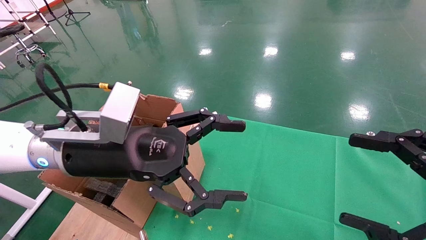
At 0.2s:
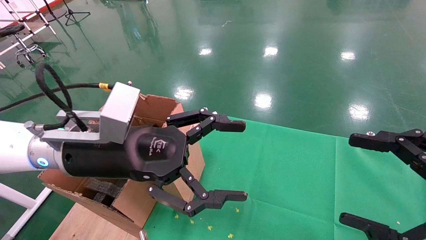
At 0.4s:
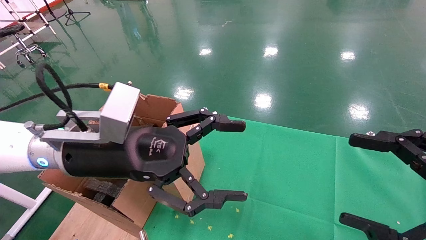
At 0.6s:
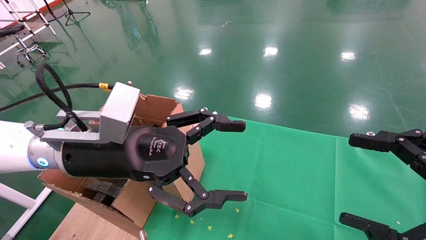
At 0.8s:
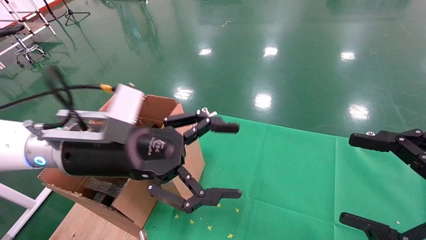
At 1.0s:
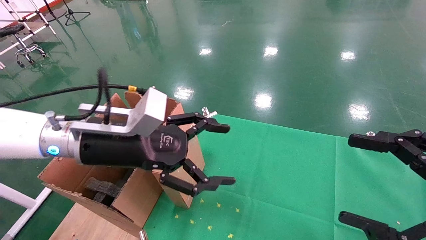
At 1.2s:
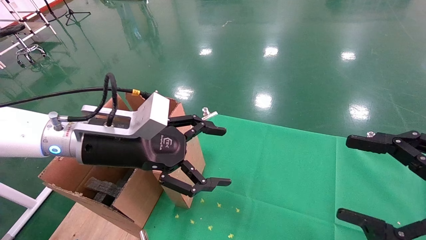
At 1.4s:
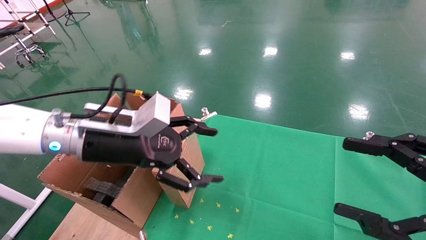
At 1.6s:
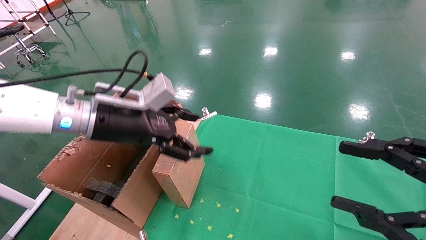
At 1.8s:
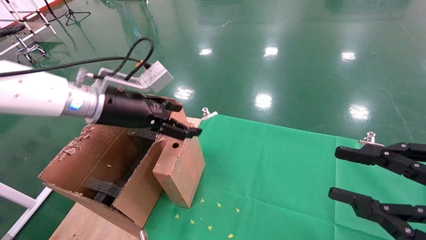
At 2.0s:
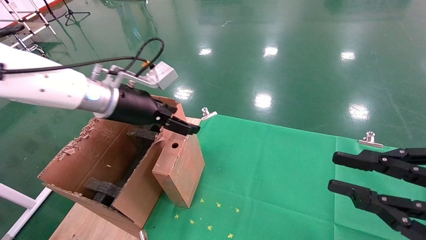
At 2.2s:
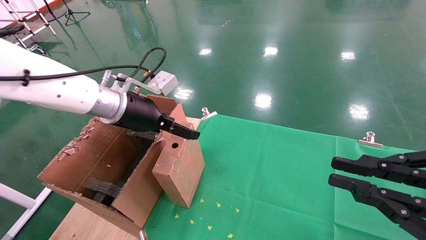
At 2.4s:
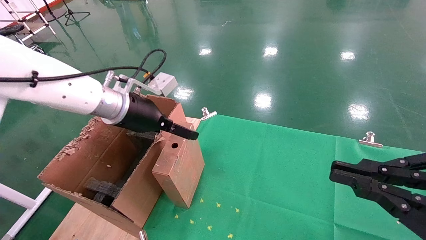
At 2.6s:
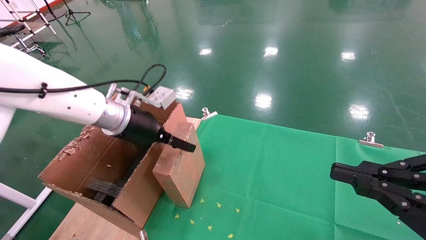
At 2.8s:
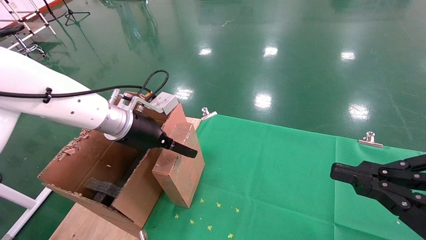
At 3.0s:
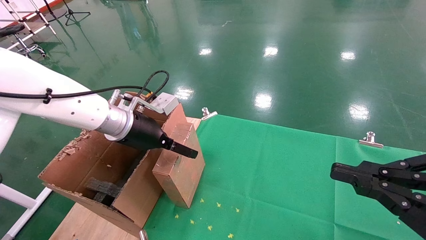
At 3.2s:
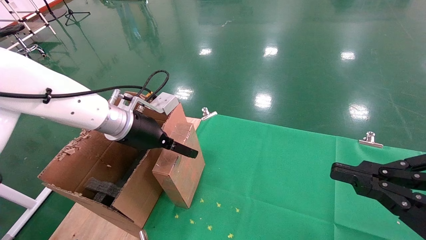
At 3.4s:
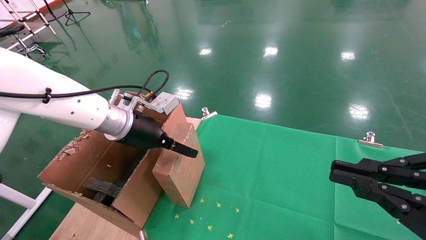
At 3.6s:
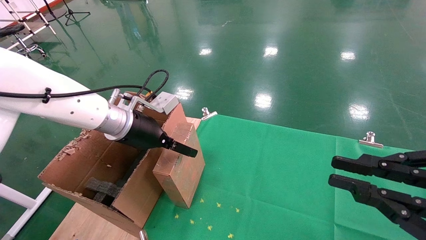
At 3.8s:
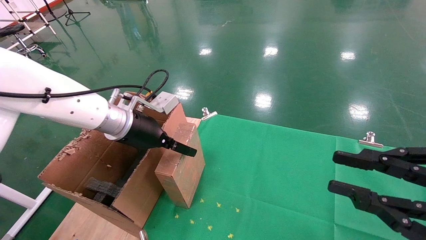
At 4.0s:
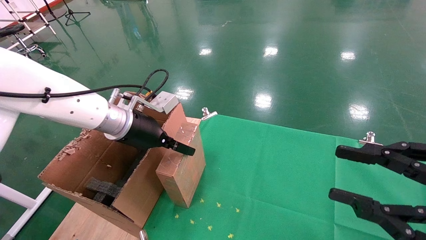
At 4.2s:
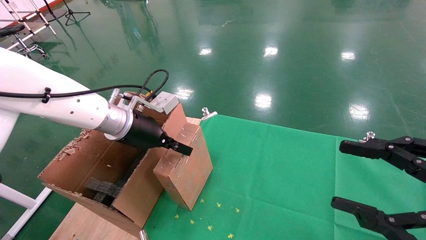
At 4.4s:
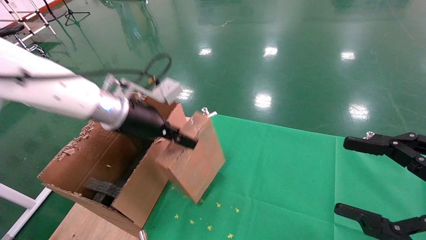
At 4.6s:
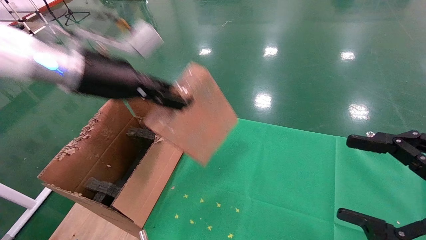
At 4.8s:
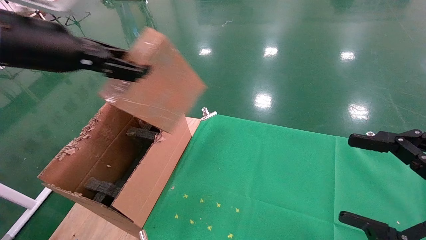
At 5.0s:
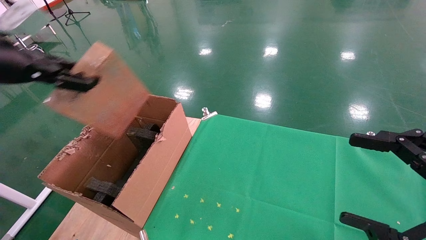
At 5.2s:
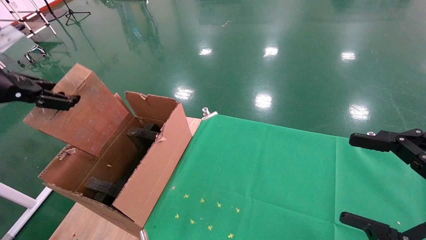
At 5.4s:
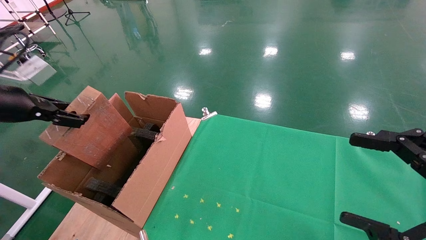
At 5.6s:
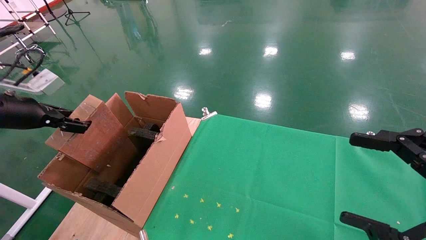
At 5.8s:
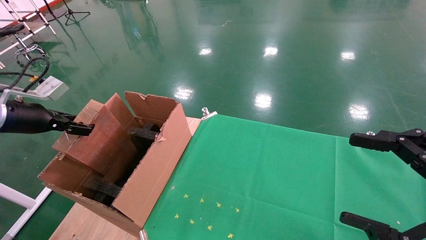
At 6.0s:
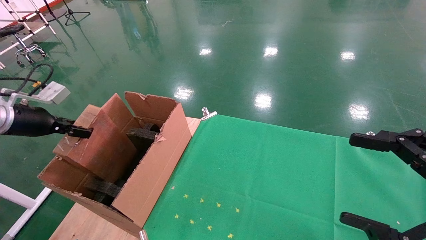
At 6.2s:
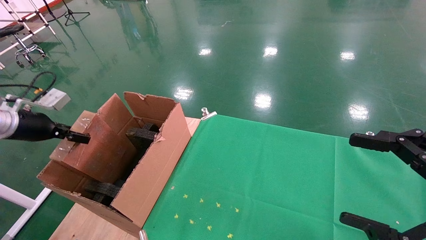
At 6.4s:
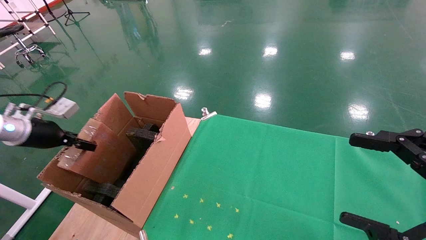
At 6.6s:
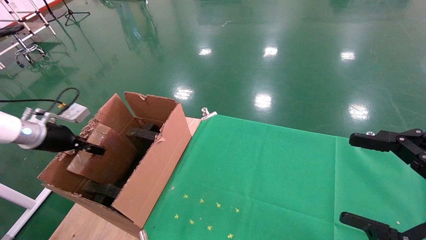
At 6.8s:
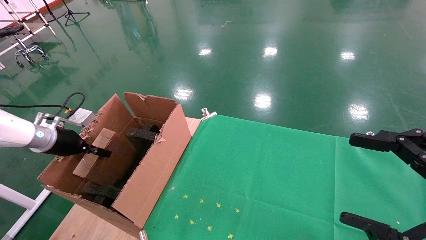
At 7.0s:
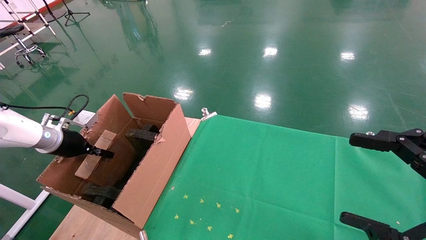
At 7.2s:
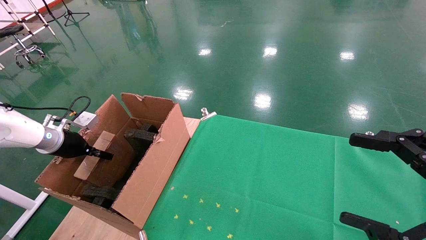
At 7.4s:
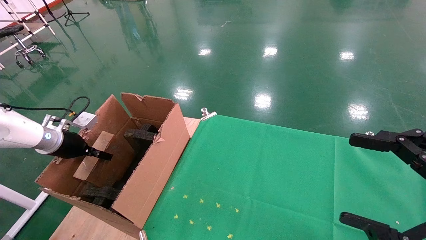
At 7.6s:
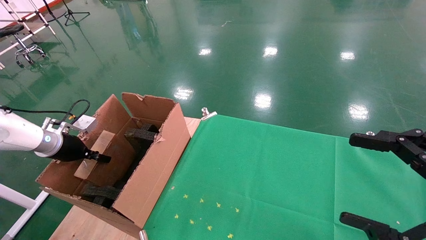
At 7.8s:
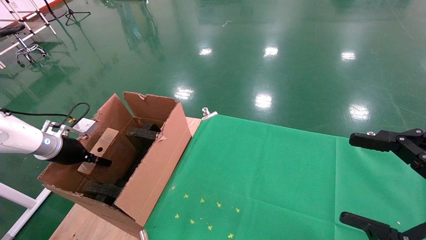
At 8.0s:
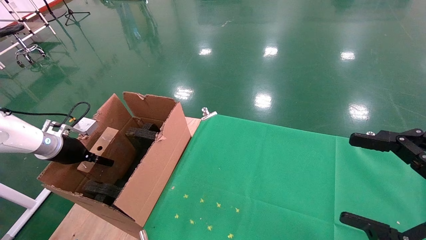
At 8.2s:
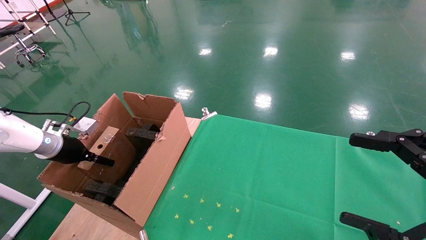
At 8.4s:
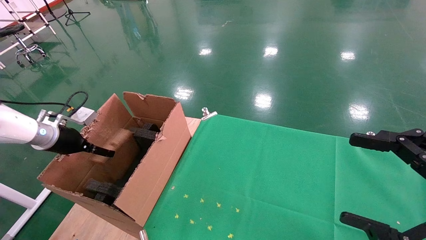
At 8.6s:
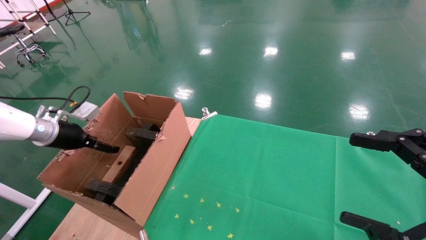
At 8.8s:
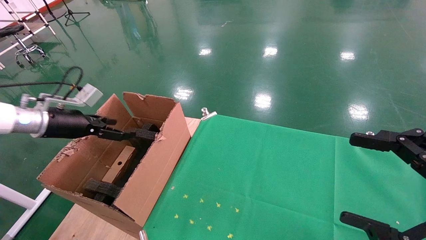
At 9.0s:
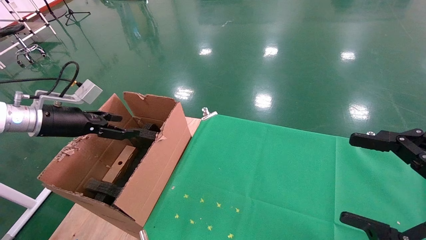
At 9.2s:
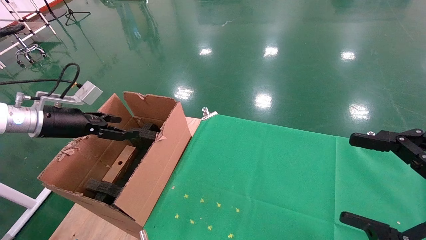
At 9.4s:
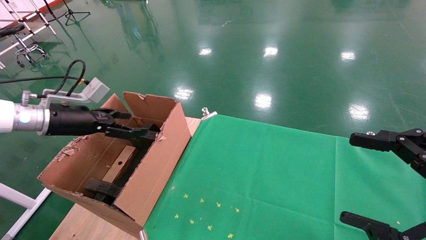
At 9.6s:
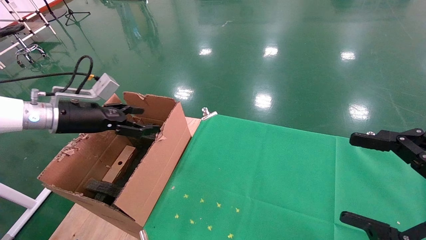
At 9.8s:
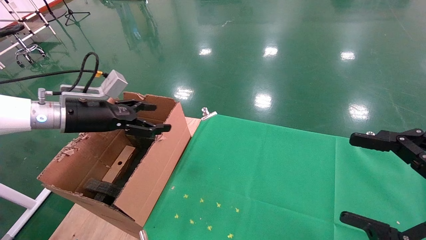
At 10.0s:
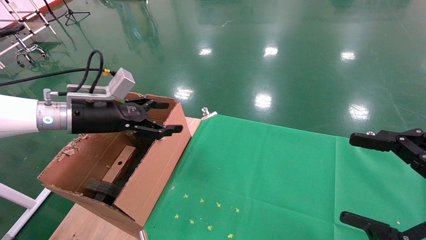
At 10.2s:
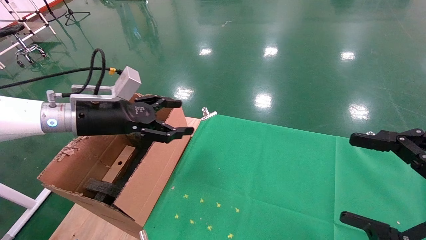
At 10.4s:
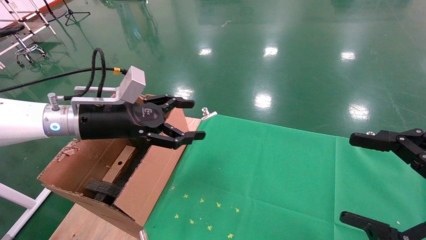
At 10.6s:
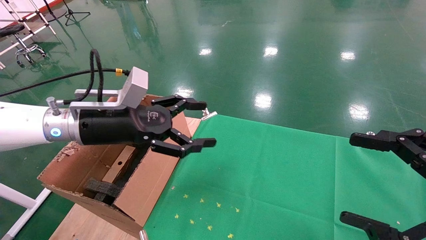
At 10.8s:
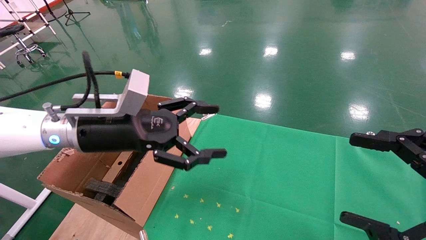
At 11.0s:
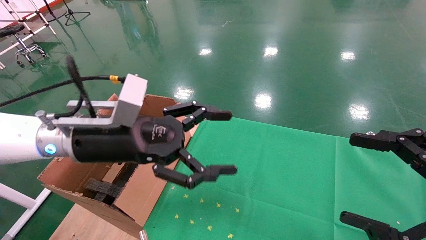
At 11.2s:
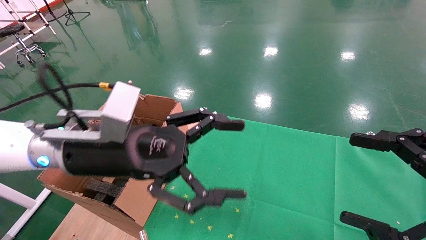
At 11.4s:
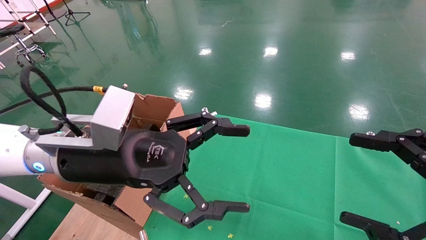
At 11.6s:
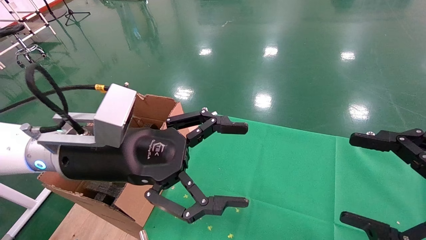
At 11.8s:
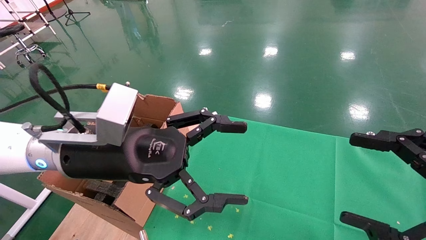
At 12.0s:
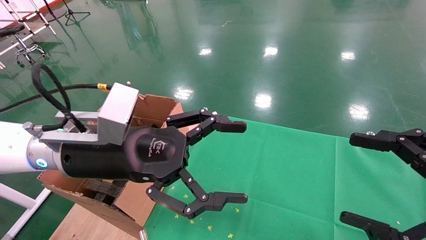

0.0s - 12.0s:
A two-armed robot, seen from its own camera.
Task of the whole recording: using a robotic arm to pick up a cardboard box and palace it the carton.
Step, 0.8s - 3.8s: Pick up the mouse and the power cord paper box.
Step, 4.0s - 8.8s: Place the mouse and the power cord paper box into the container.
0.0s - 1.6s: The left gripper is displaced forward by roughly 10 cm.
1.6s - 3.0s: The right gripper closes its fingers, while the left gripper shifts by some 5 cm.
3.0s - 4.4s: The left gripper moves upward, approximately 5 cm, and closes; the right gripper opens up.
4.4s - 6.0s: The left gripper travels to the left by approximately 25 cm. The right gripper opens its fingers.
6.0s - 7.6s: The left gripper travels downward and forward by about 10 cm.
7.6s - 9.0s: The left gripper shifts some 10 cm upward, and opens.
9.0s - 10.4s: The left gripper shifts roughly 15 cm to the right.
10.4s - 12.0s: The left gripper is displaced to the right and backward by roughly 10 cm.

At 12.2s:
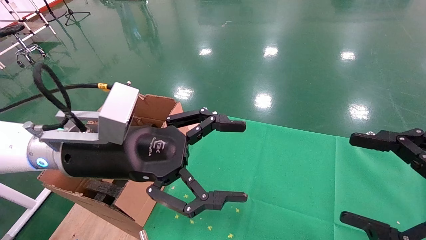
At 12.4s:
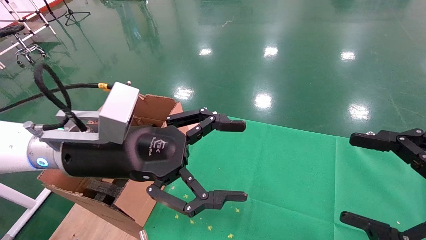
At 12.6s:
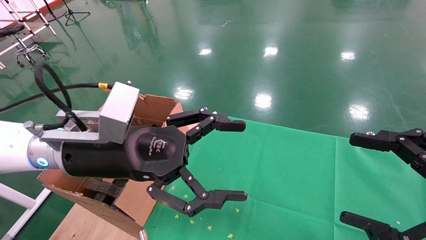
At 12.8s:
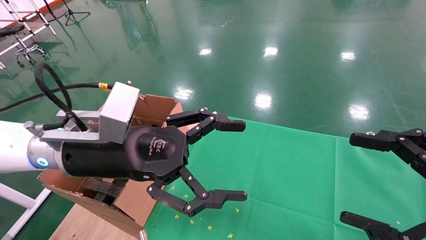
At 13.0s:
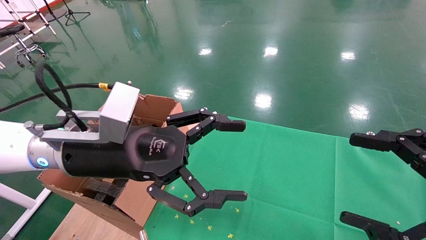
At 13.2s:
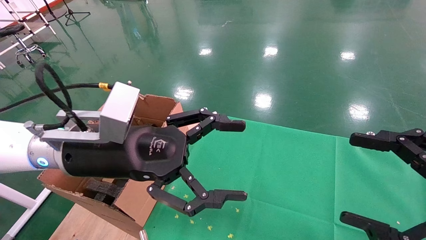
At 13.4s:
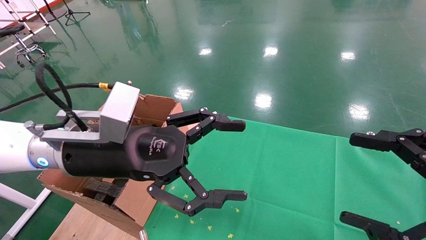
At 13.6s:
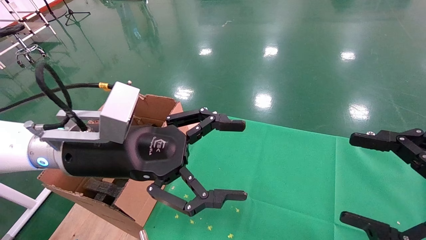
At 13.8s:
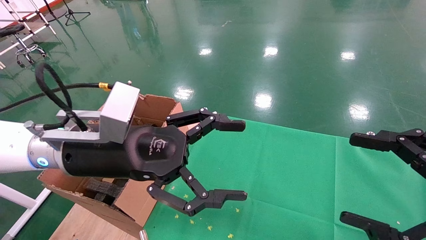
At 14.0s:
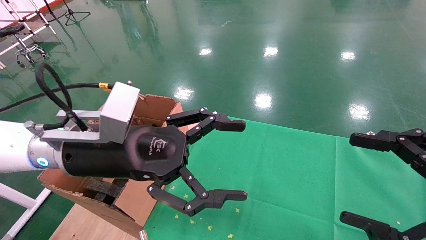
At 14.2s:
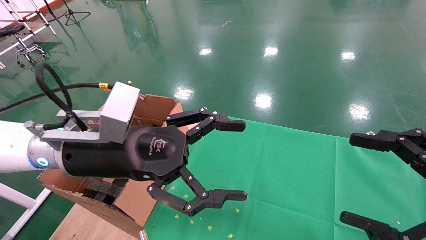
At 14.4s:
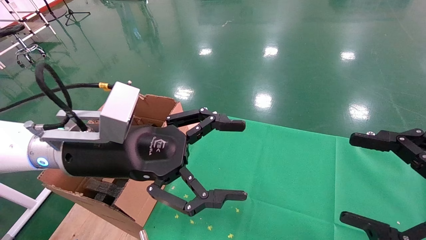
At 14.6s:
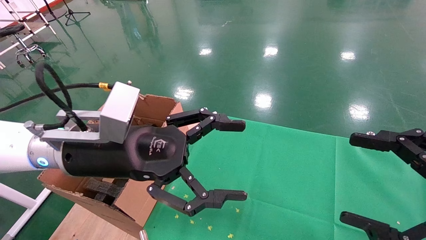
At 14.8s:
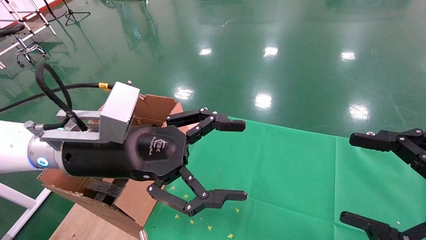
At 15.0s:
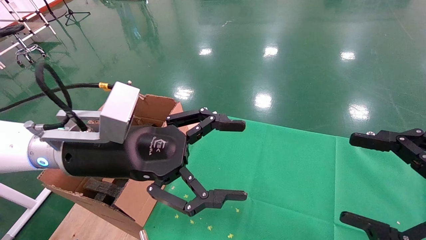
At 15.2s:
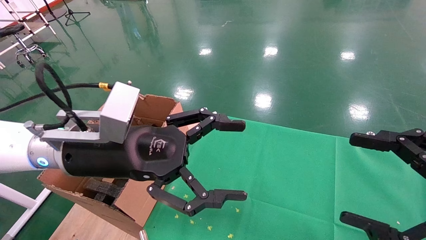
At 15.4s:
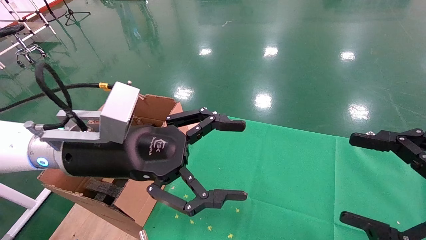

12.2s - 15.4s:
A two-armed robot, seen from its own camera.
Task of the whole recording: using a robotic arm to pick up a cardboard box and palace it the carton.
12.2s - 15.4s: The two grippers keep their place.

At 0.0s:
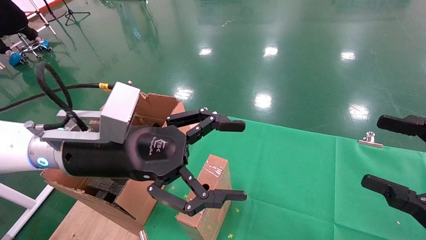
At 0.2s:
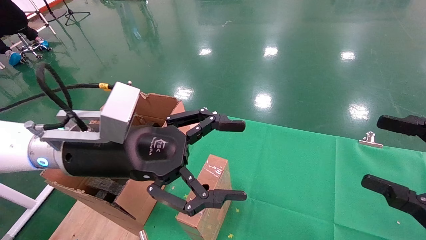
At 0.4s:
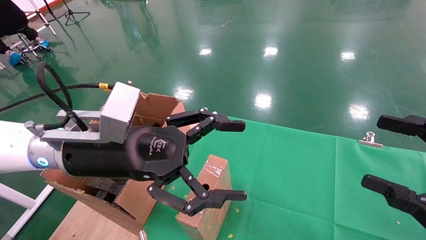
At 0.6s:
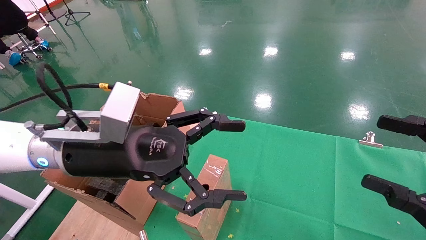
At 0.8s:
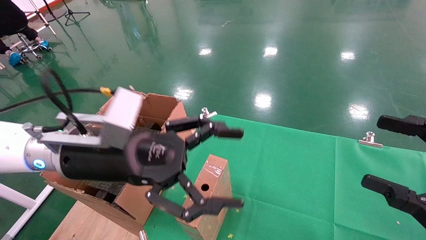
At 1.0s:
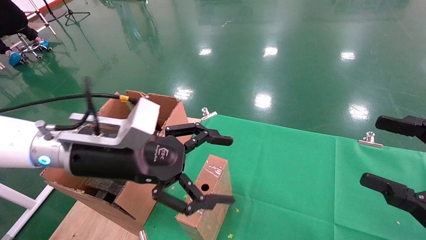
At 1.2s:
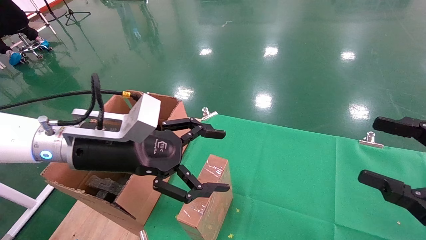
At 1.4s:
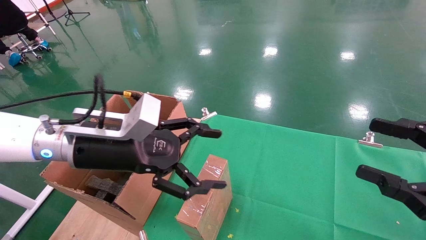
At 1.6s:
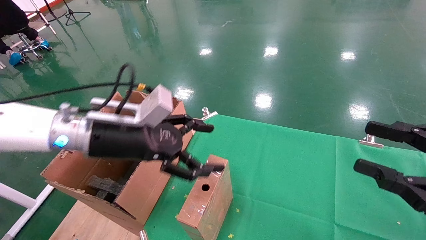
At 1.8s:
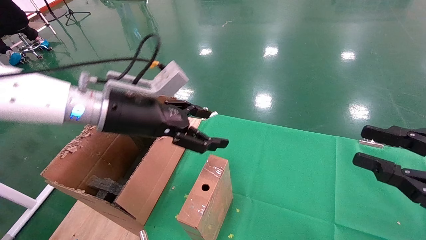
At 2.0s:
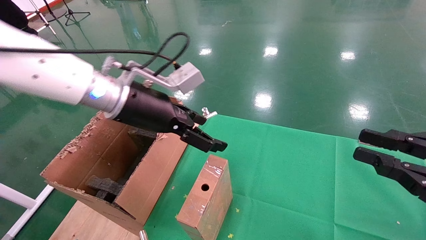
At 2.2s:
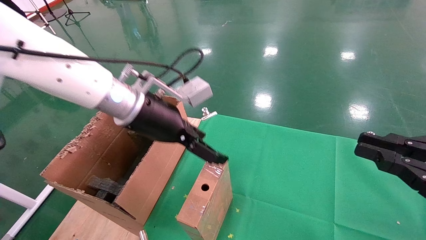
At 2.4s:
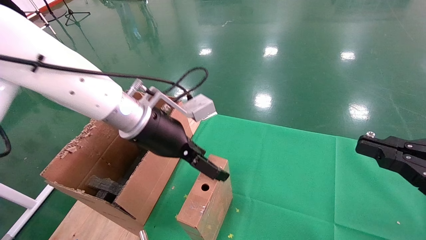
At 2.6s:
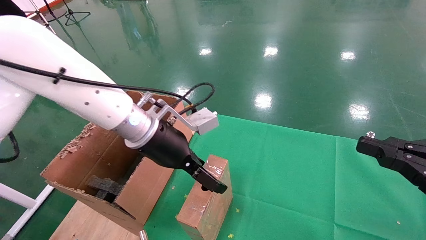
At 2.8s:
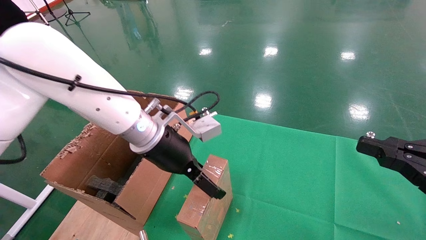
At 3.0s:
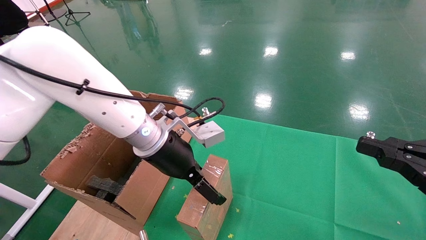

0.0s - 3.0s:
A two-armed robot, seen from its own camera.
Task of the whole recording: using a robotic arm to pick up a cardboard box and palace it the carton.
0.0s - 1.6s: The left gripper shifts by roughly 5 cm.
1.6s - 3.0s: The right gripper closes up; the left gripper moves to the right, roughly 5 cm.
